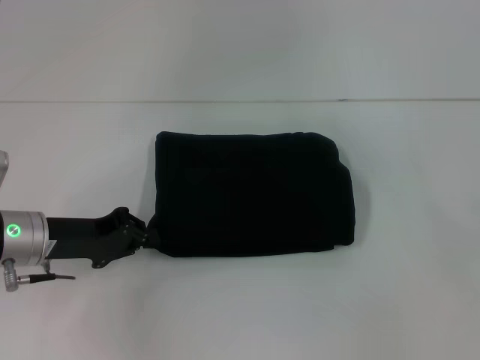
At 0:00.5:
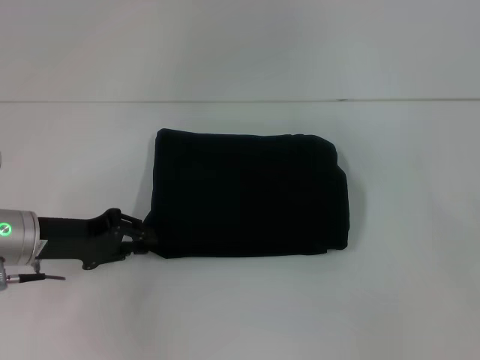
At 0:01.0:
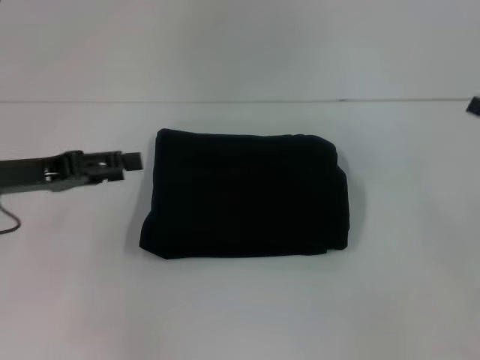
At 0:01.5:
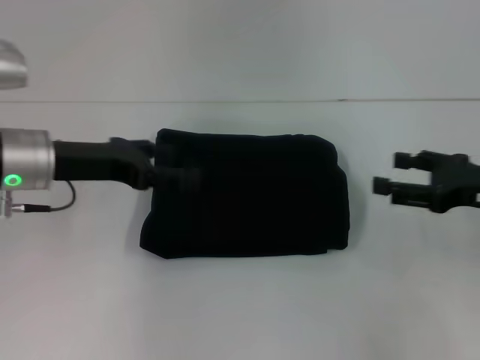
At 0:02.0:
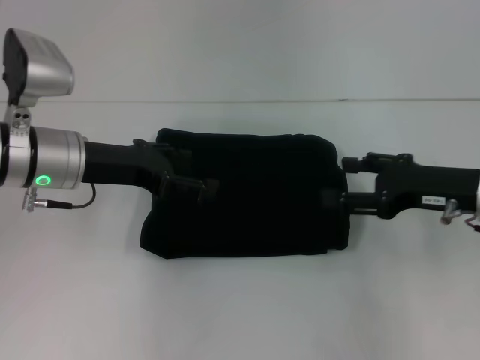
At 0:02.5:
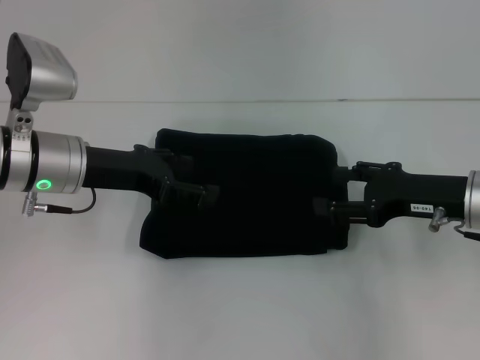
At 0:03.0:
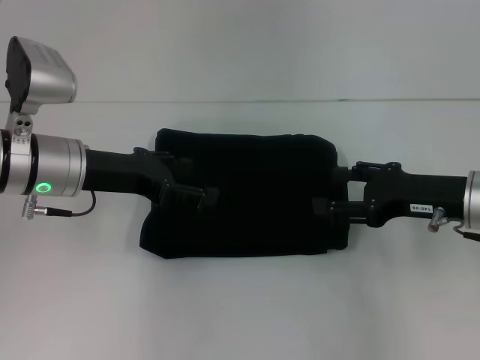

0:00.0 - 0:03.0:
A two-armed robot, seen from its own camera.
0:00.0 - 0:01.5: The right gripper heads to the left, covering about 5 cm, while the left gripper heads upward, covering roughly 5 cm, and opens its fingers.
0:01.5 - 0:03.0: The right gripper moves to the left, approximately 5 cm.

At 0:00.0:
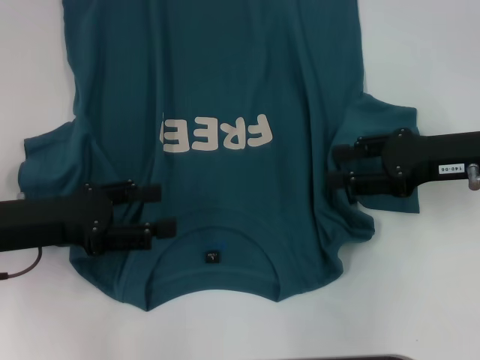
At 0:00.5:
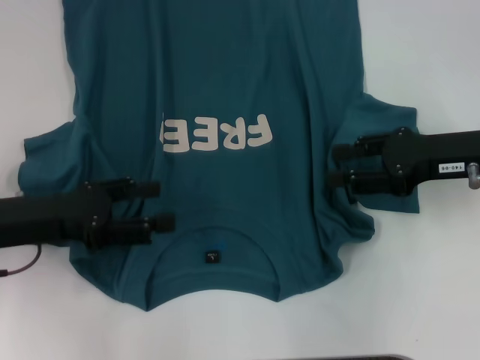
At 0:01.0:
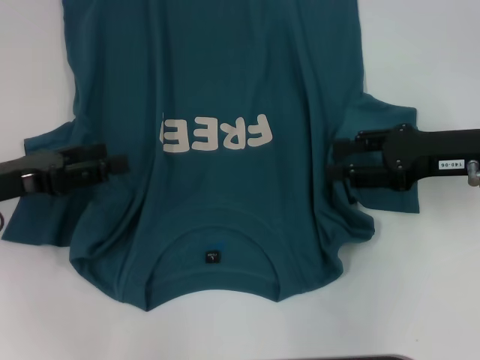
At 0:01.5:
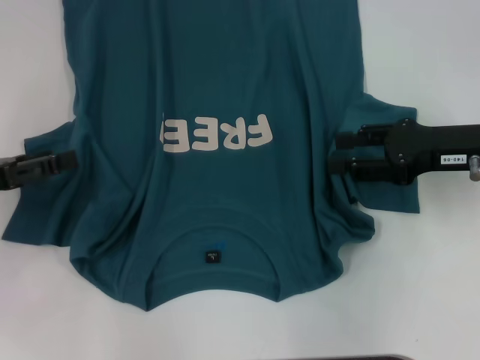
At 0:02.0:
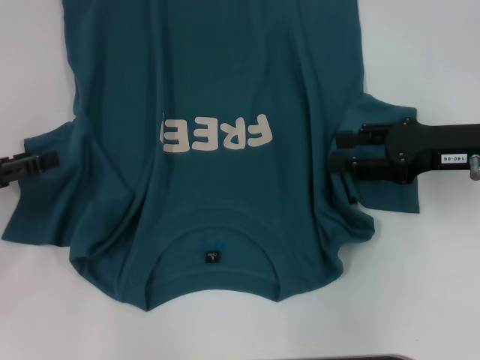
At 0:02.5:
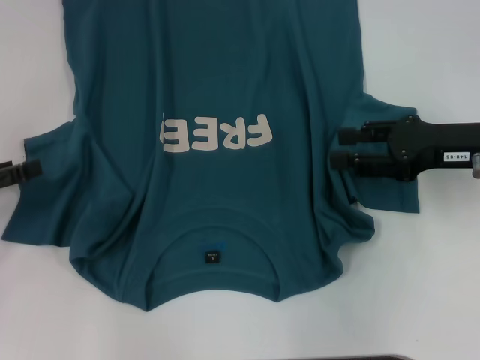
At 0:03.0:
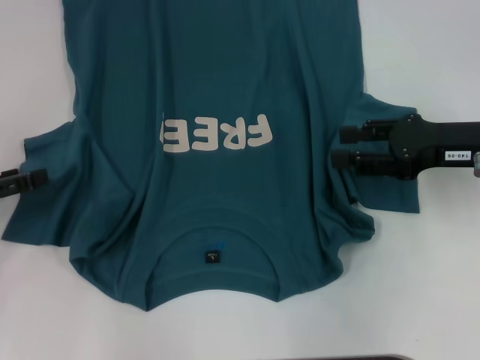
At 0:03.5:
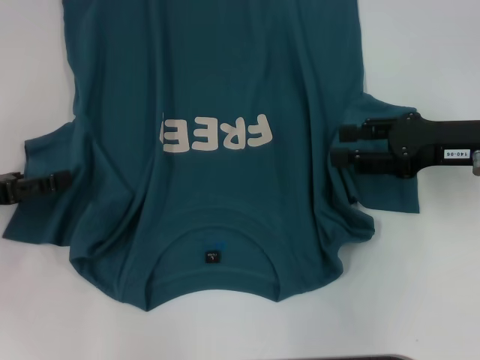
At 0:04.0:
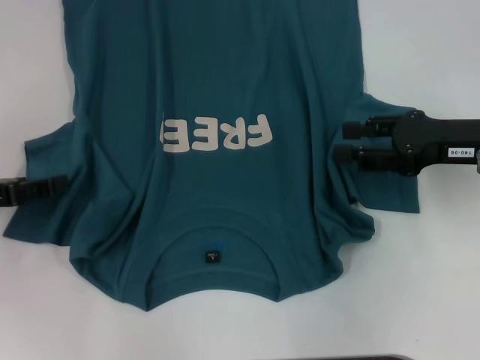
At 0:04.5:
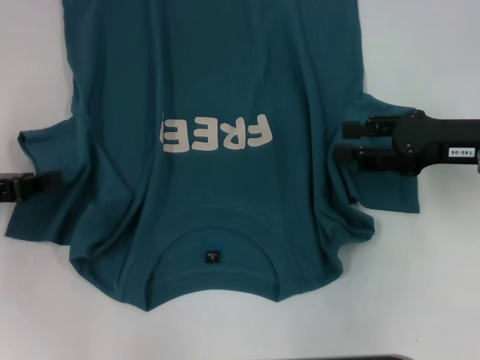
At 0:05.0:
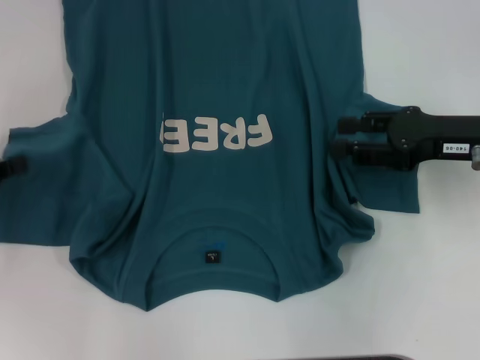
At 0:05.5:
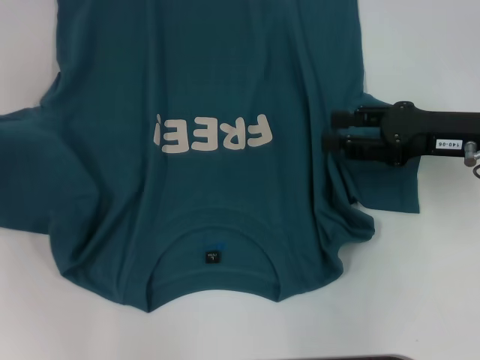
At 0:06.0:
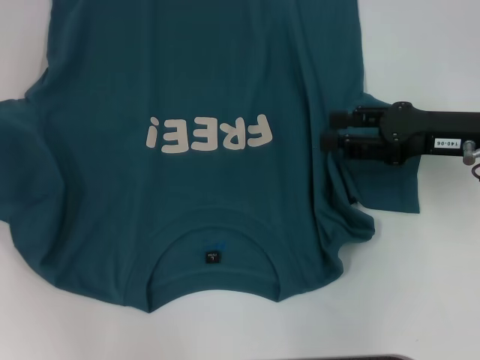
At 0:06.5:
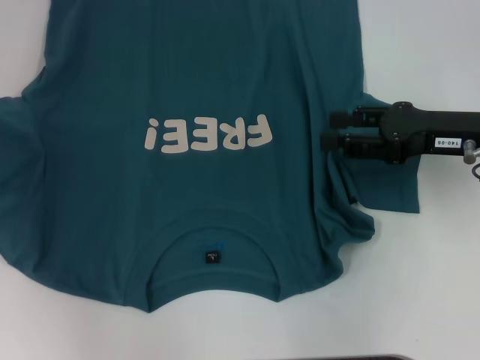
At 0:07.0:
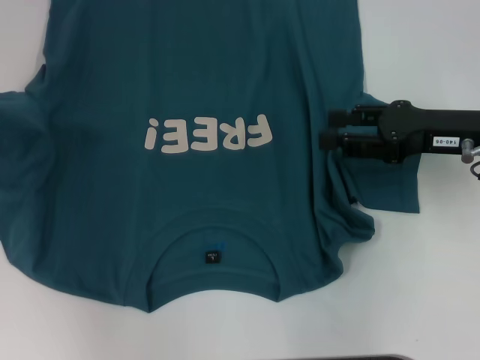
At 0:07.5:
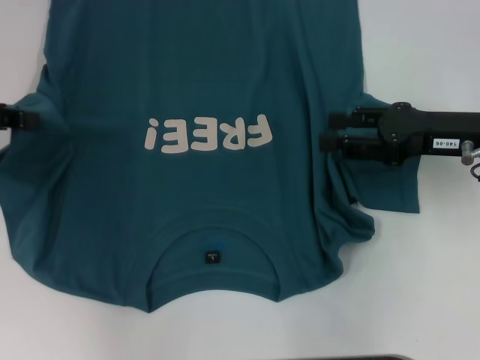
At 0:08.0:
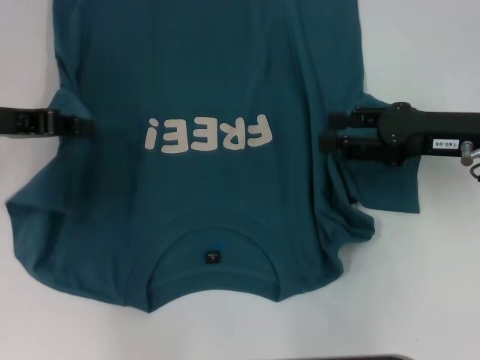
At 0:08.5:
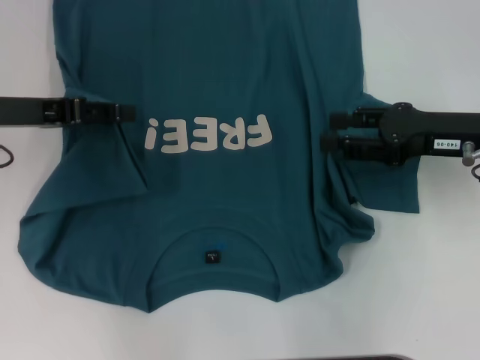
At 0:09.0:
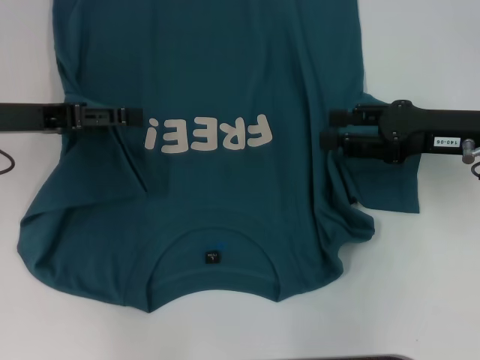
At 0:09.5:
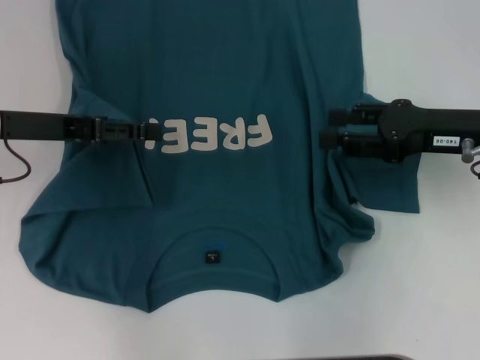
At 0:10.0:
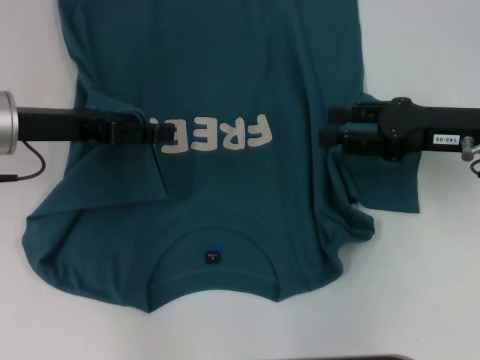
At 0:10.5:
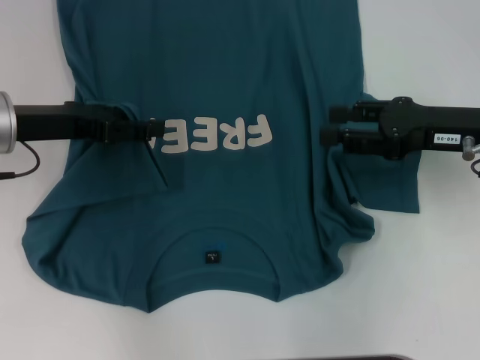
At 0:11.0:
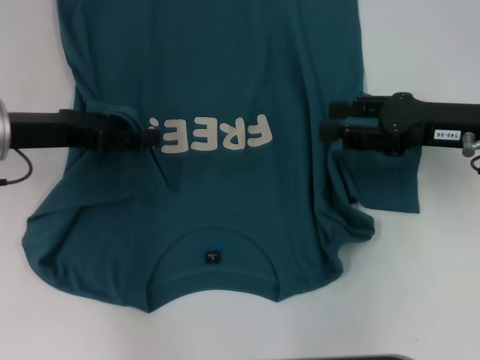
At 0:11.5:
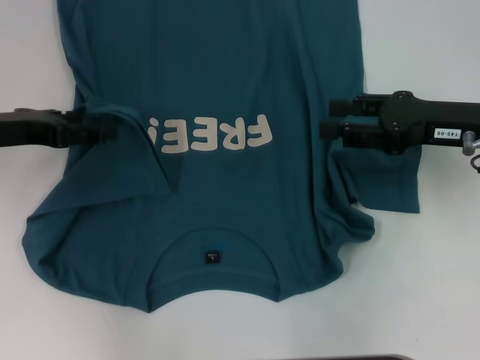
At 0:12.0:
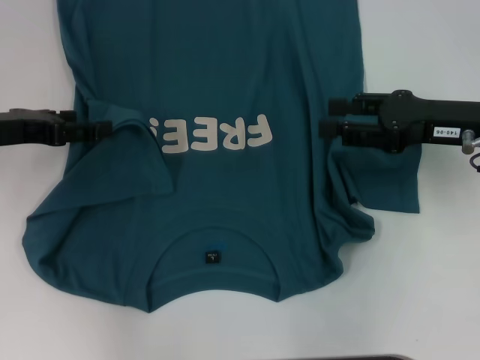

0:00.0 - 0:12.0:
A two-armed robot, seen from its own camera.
0:00.0 - 0:02.0: The left gripper shifts about 10 cm to the left.
0:02.0 - 0:04.0: The grippers move only a little.
0:04.0 - 0:06.0: The left gripper heads upward, covering about 10 cm, and closes up.
0:06.0 - 0:08.0: The left gripper shifts approximately 10 cm to the right.
0:08.0 - 0:10.0: The left gripper changes place by some 5 cm, and opens up.
0:10.0 - 0:12.0: The grippers make only small movements.

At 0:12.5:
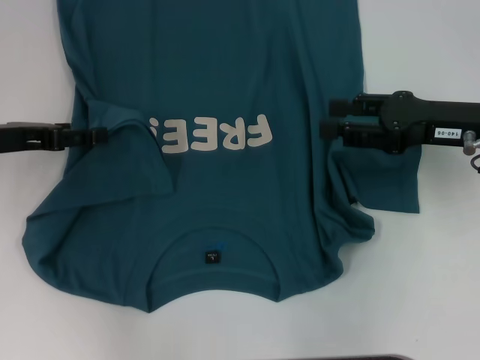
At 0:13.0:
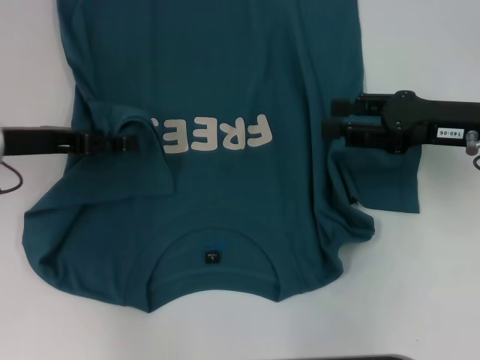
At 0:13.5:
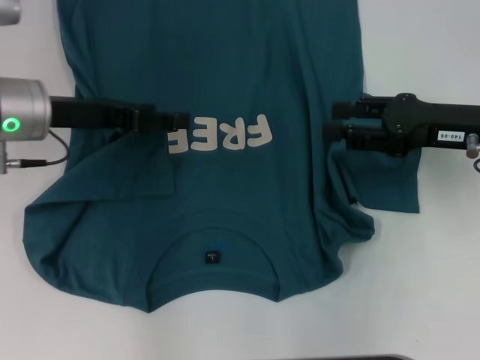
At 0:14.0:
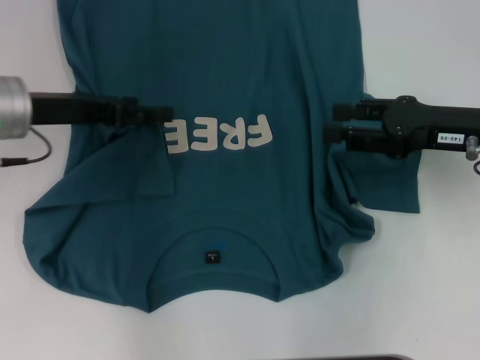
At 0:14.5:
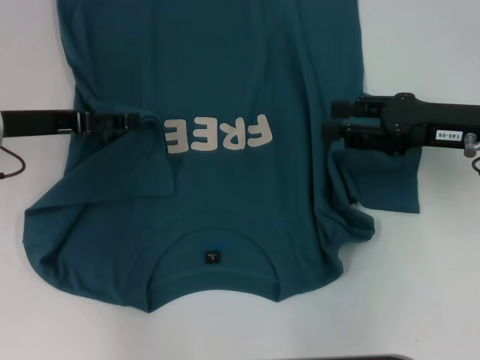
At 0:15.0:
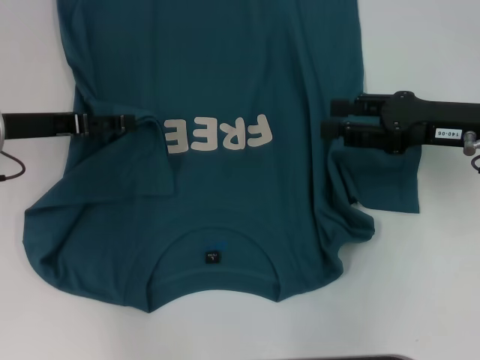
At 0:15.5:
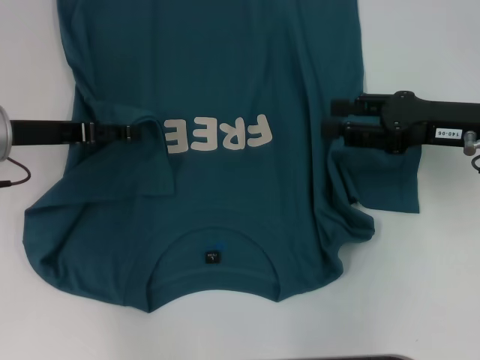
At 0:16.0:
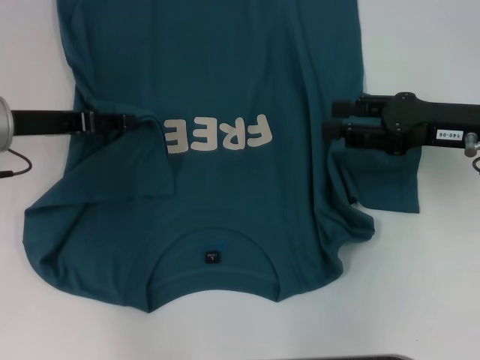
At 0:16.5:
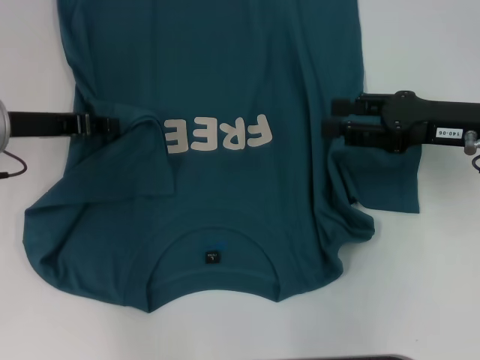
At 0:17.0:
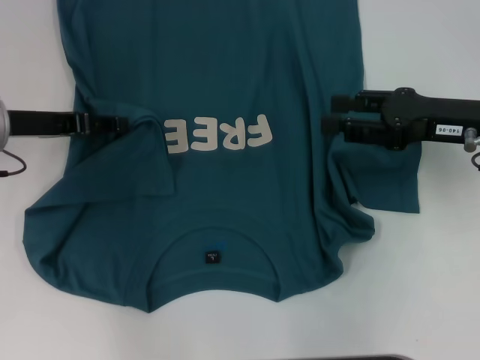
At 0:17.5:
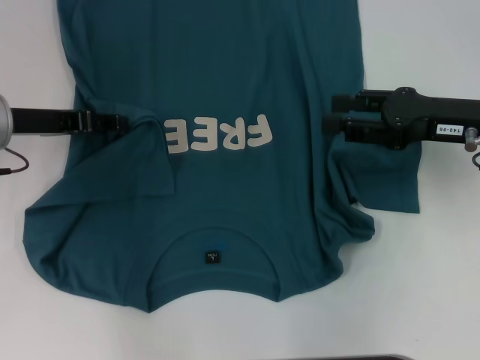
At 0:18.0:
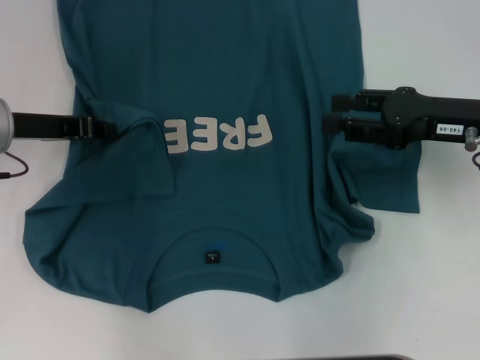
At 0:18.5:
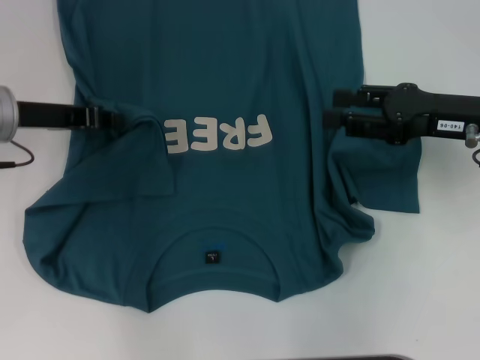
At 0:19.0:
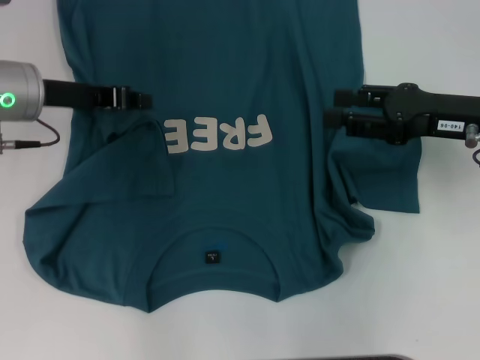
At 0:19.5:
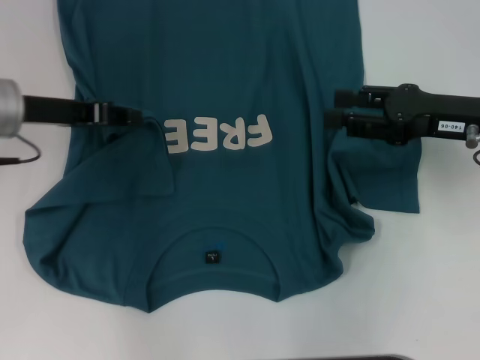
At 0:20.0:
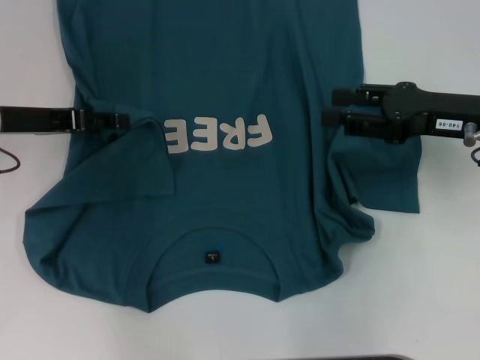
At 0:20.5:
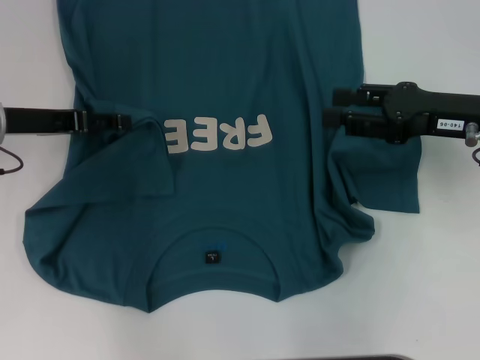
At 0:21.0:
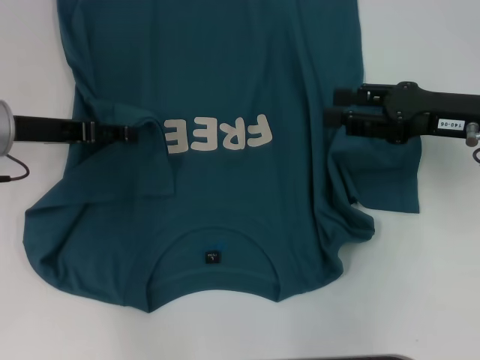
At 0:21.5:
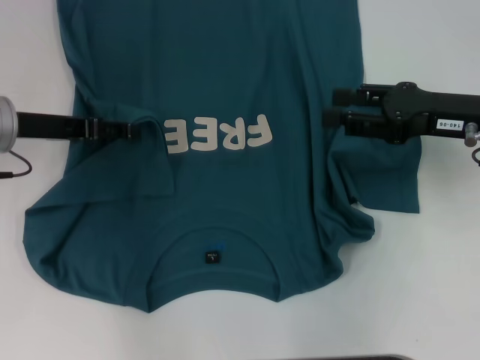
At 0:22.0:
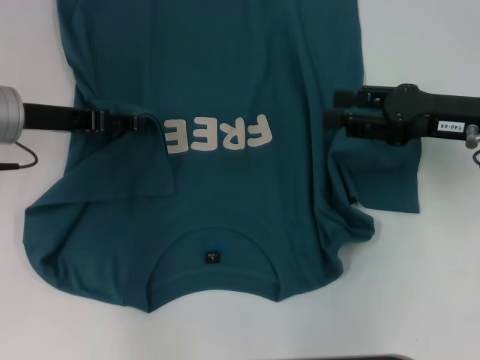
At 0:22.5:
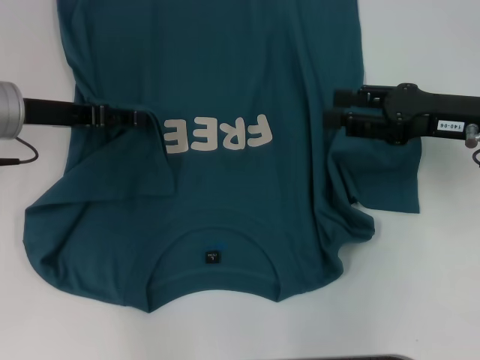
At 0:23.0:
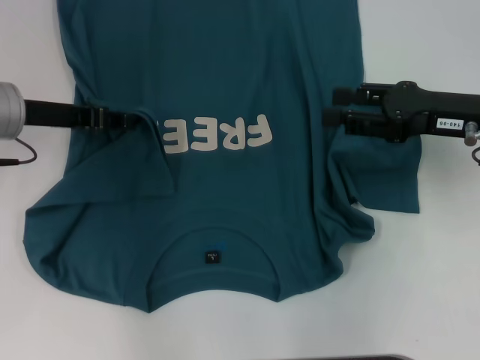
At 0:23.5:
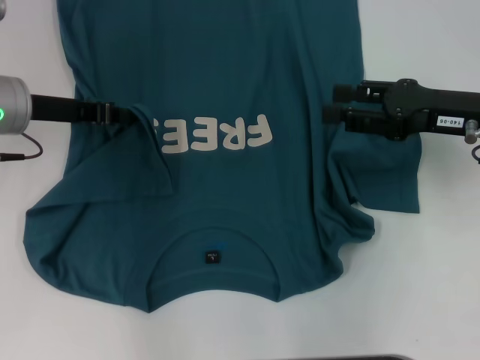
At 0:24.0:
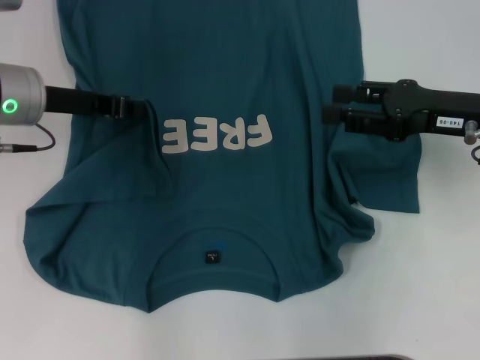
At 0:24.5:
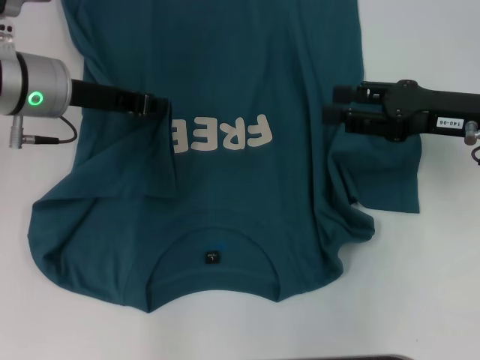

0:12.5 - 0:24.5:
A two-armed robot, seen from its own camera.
0:14.5 - 0:16.5: The left gripper closes up.
0:16.5 - 0:18.5: There are only small adjustments of the grippers.
0:18.5 - 0:20.5: The left gripper opens up.
0:20.5 - 0:22.5: The grippers make only small movements.
0:22.5 - 0:24.5: The left gripper ends up some 5 cm from where it was, and closes its fingers.
